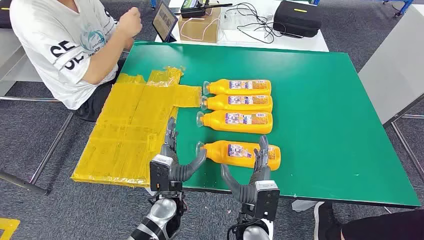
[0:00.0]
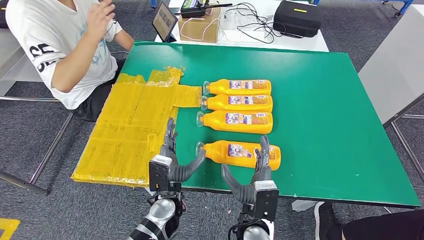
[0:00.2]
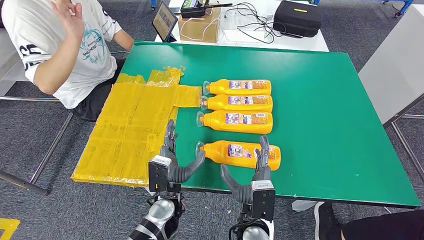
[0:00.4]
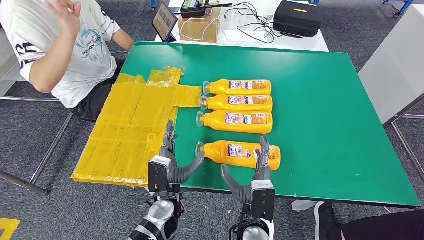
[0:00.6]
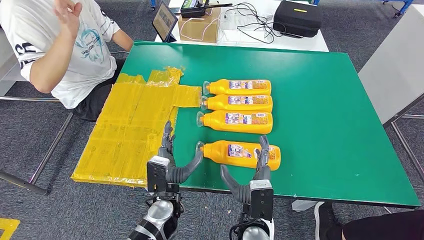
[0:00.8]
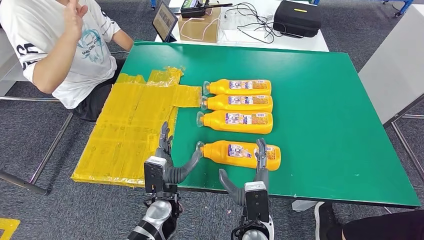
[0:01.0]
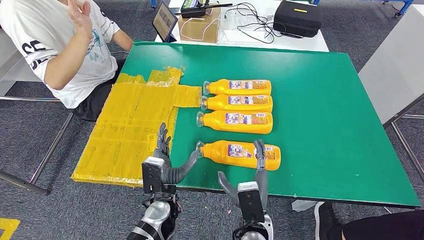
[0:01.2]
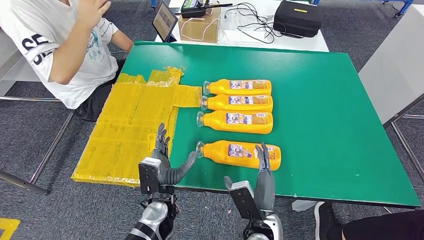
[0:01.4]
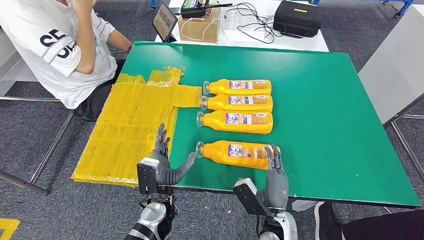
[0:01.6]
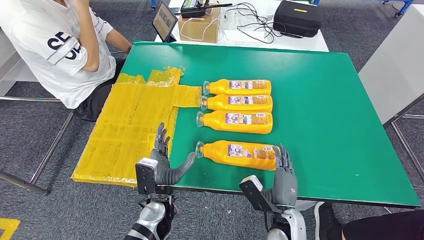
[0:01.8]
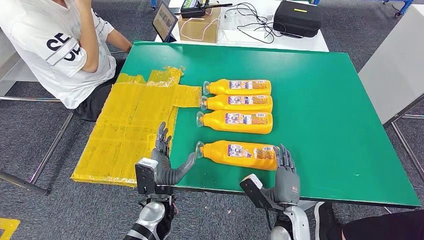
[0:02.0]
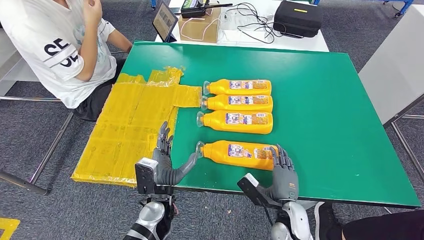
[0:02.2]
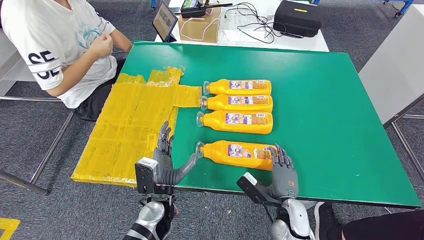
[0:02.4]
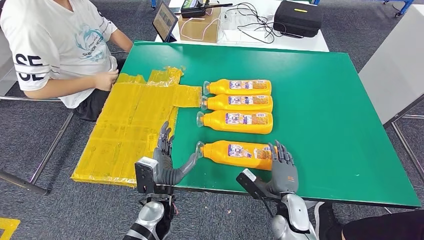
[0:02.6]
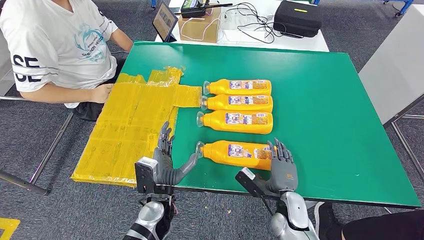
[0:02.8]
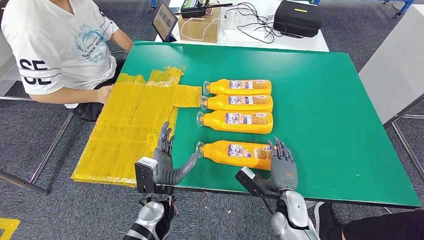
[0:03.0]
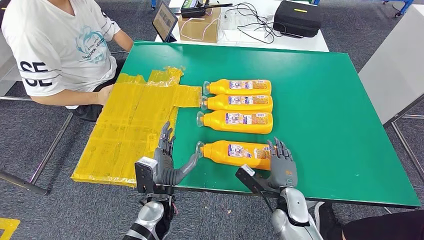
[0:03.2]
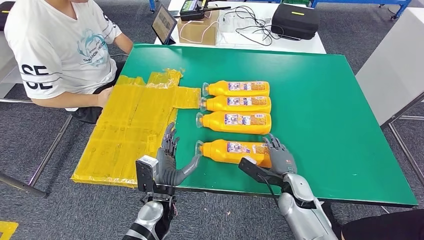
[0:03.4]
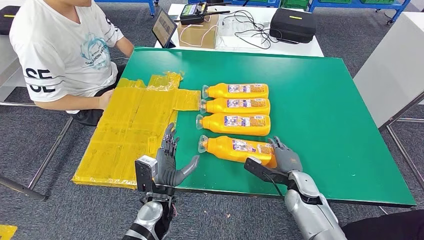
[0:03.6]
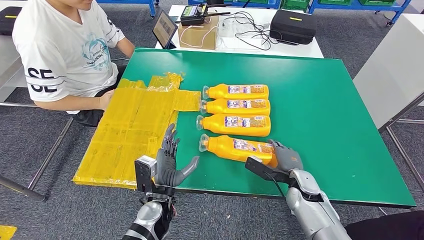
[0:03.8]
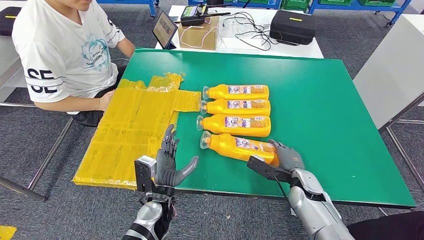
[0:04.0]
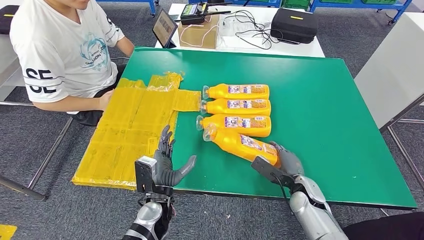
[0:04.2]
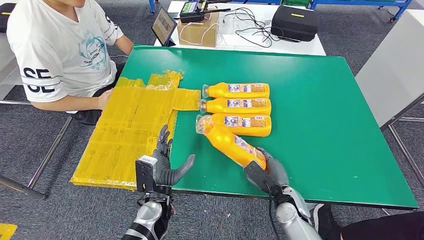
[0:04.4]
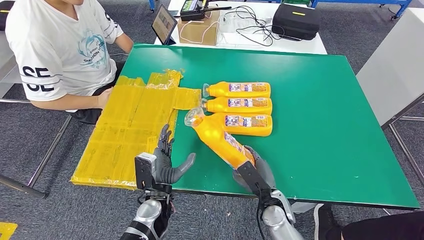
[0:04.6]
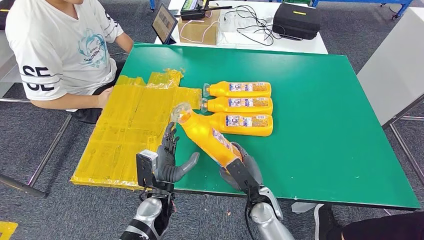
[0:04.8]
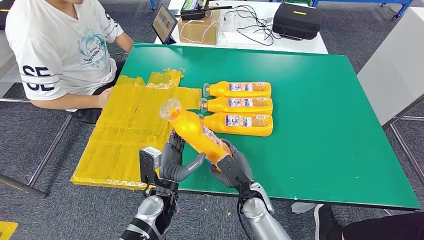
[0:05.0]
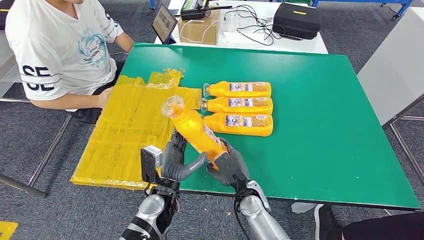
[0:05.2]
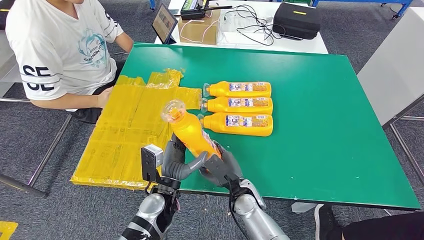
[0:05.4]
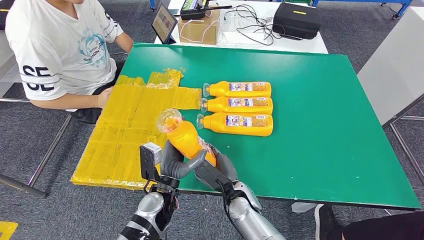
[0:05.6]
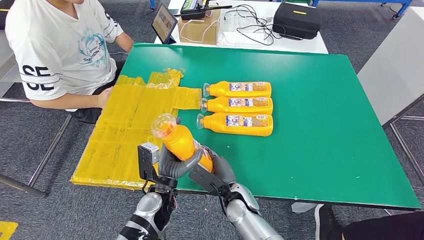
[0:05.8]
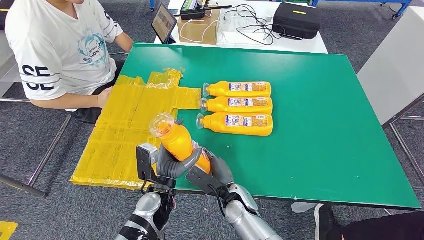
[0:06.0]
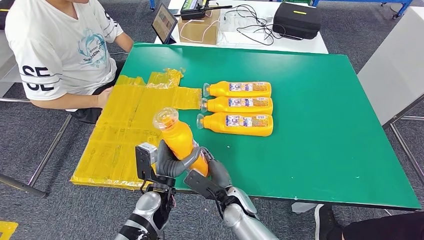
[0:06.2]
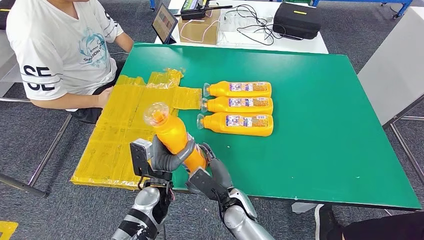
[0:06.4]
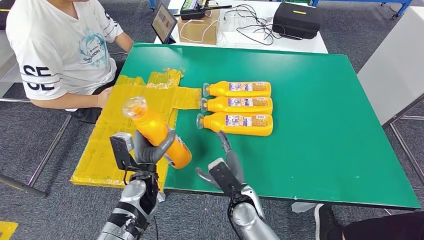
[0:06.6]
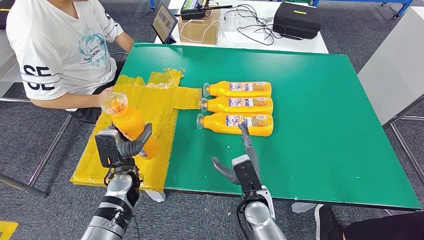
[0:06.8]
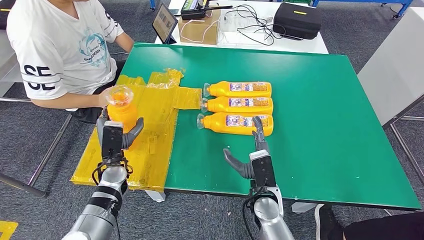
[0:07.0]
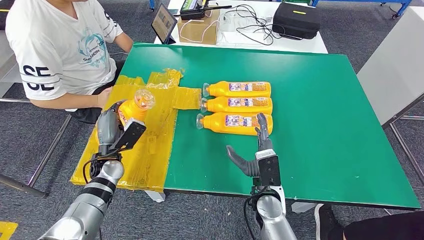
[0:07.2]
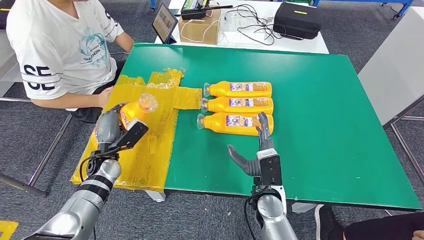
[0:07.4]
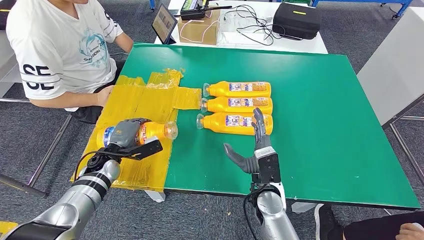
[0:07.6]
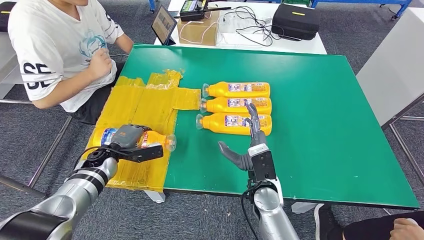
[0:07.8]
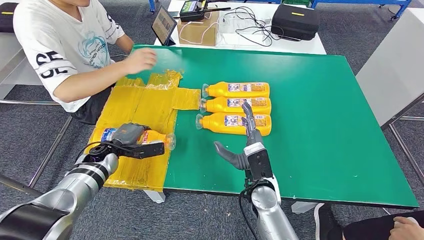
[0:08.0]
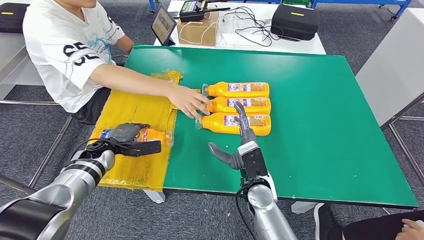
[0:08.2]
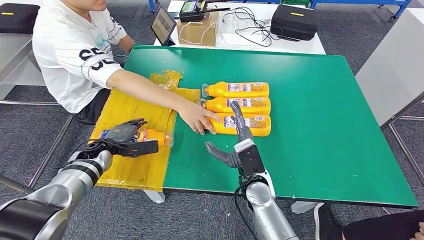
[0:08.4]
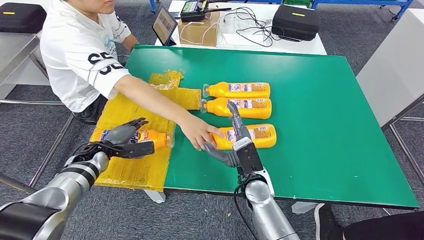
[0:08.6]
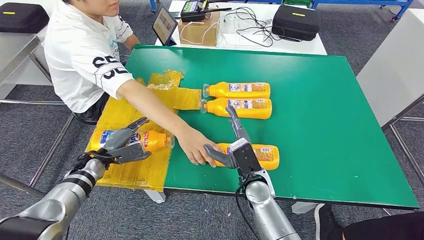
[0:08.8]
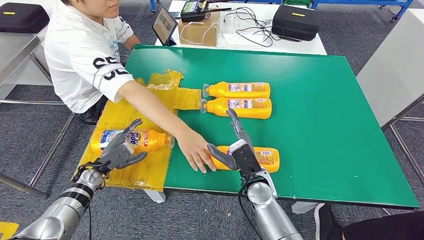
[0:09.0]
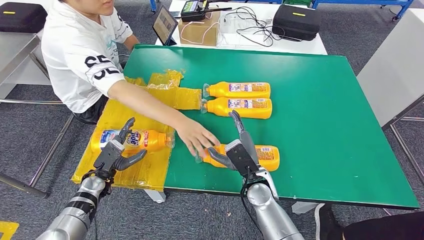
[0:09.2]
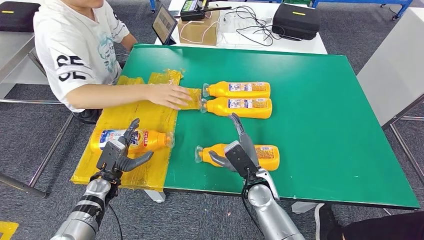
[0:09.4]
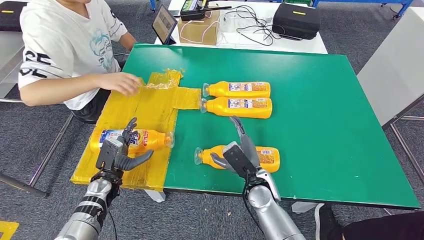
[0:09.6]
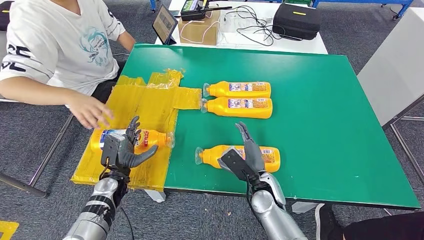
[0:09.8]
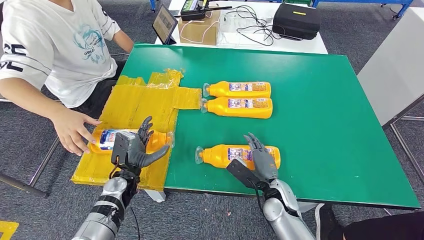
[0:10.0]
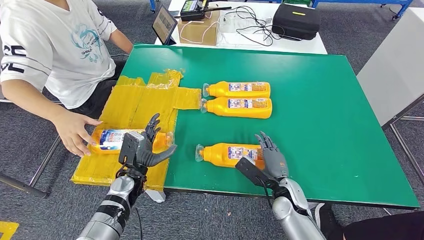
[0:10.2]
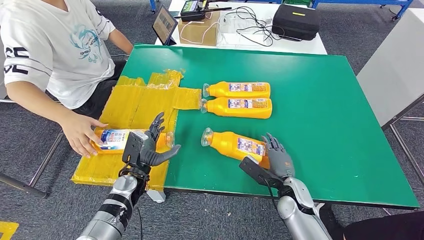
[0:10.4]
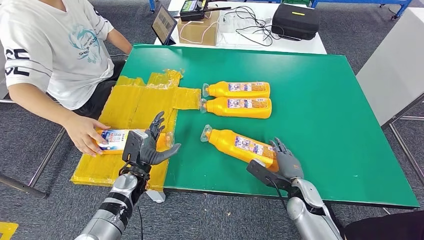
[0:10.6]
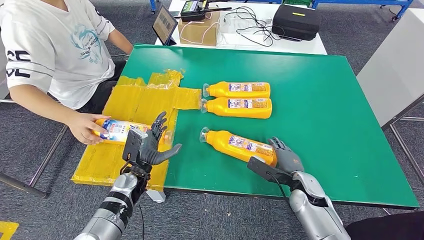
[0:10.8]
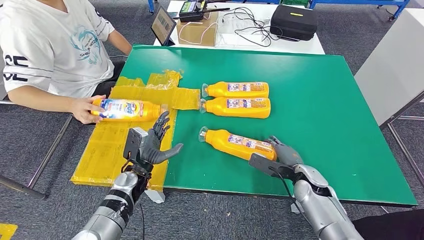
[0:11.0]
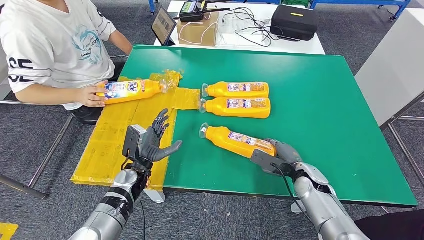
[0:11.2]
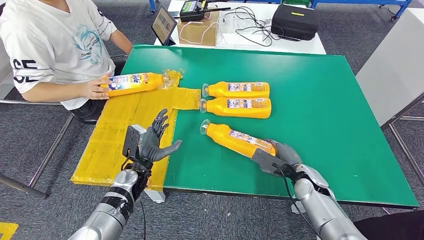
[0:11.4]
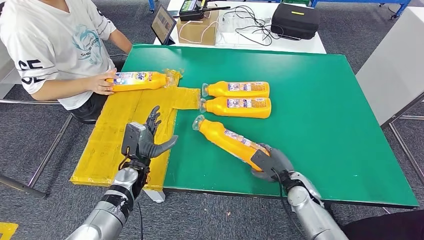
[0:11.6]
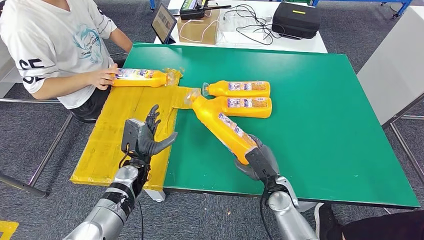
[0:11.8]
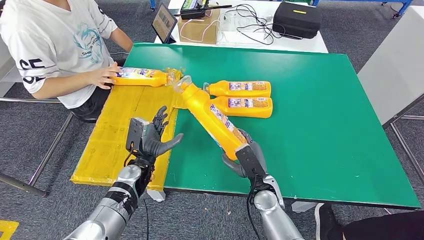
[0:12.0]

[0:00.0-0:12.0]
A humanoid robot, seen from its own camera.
Step, 0:00.0 to 0:06.4: Take the fast-moving consumer goods bottle from the table.
Step, 0:06.6 to 0:09.2: Flip the fast-moving consumer goods bottle to the front side.
0:01.6 to 0:03.0: The right hand heads forward, covering approximately 5 cm.
0:06.0 to 0:07.6: The left hand shifts approximately 20 cm to the left and forward. The right hand heads to the right and upward, covering approximately 10 cm.

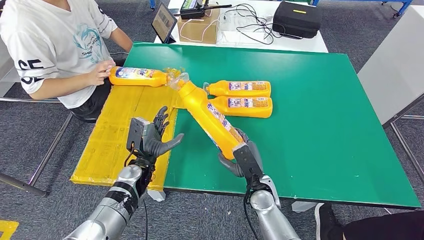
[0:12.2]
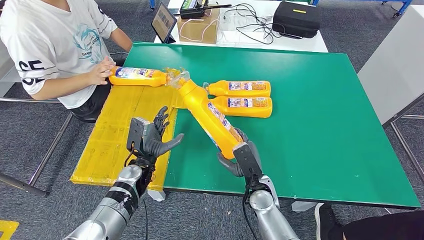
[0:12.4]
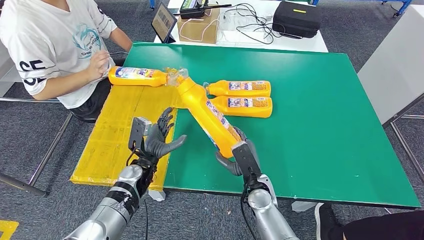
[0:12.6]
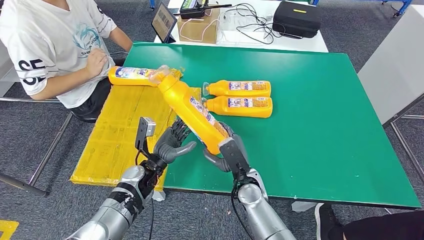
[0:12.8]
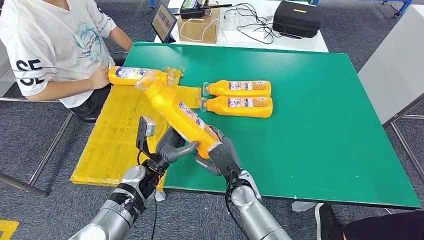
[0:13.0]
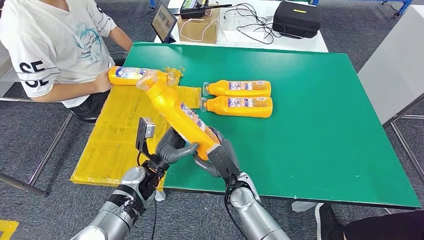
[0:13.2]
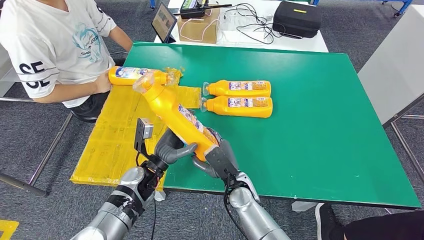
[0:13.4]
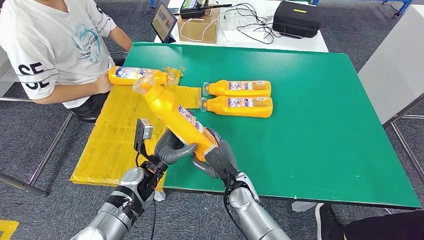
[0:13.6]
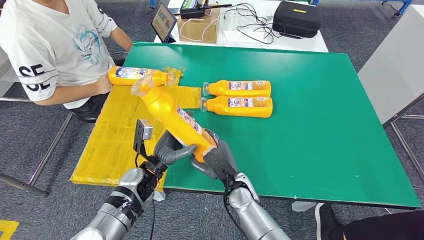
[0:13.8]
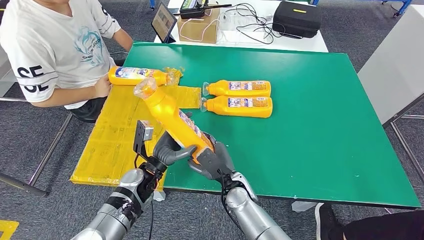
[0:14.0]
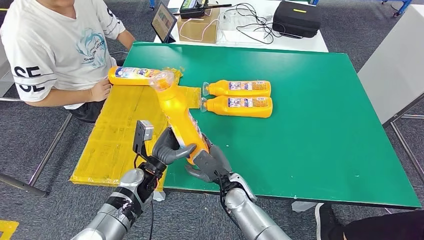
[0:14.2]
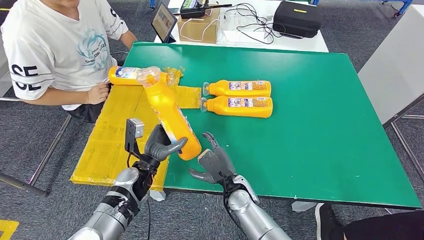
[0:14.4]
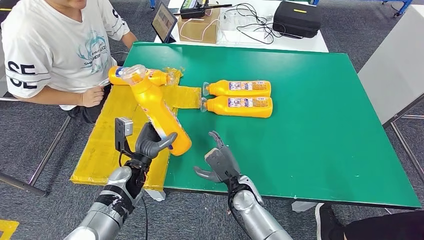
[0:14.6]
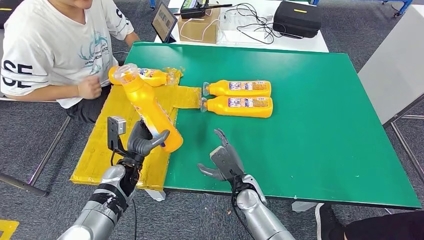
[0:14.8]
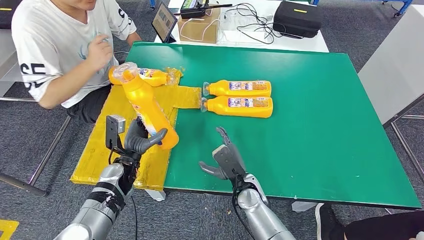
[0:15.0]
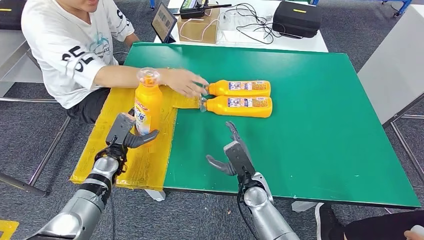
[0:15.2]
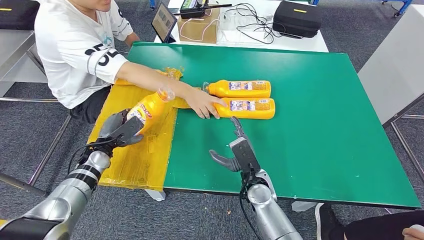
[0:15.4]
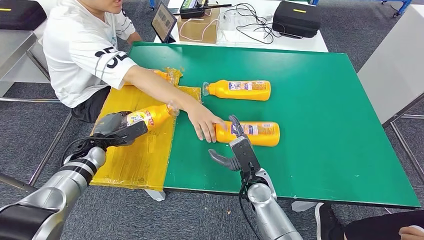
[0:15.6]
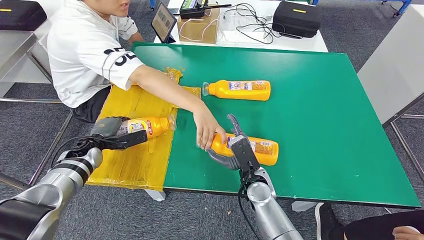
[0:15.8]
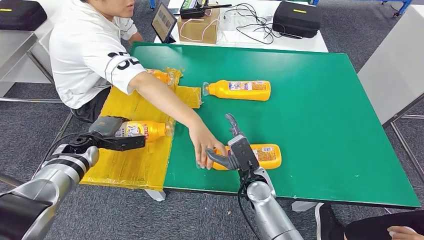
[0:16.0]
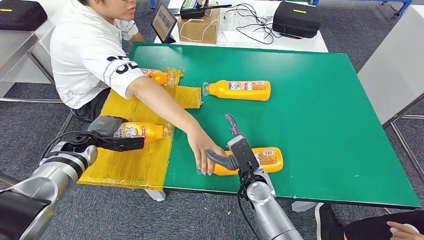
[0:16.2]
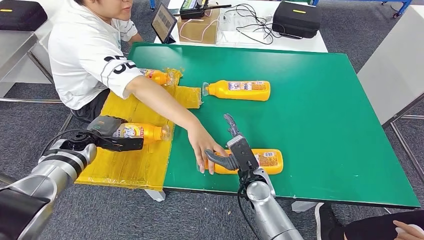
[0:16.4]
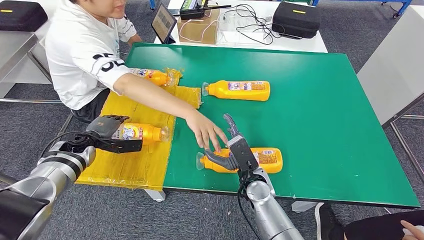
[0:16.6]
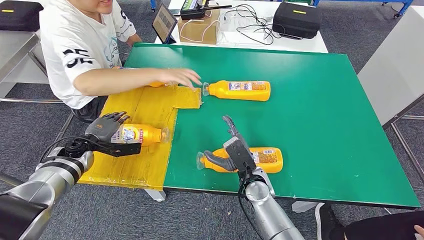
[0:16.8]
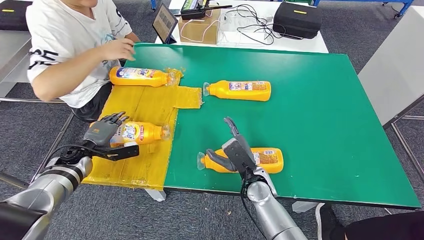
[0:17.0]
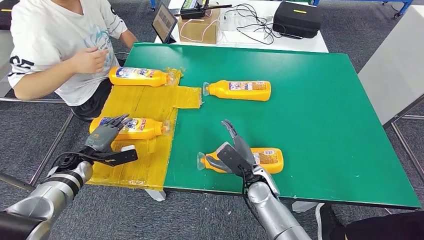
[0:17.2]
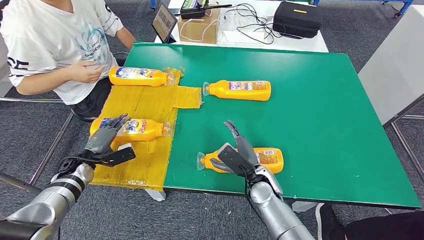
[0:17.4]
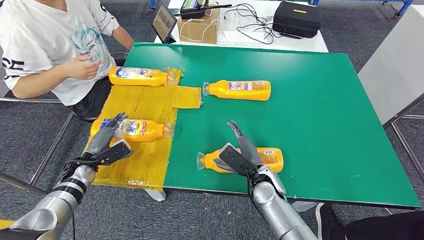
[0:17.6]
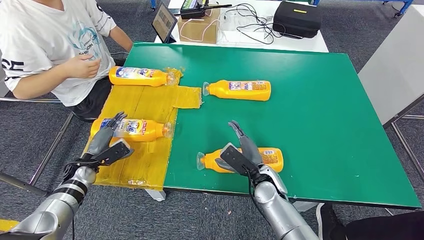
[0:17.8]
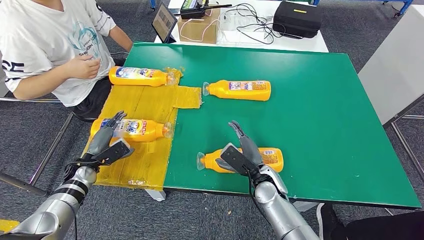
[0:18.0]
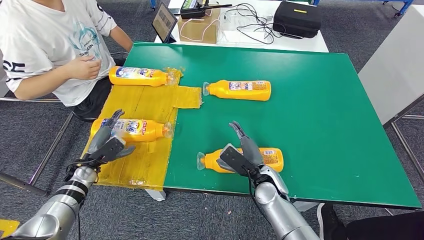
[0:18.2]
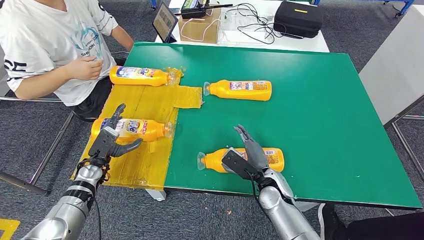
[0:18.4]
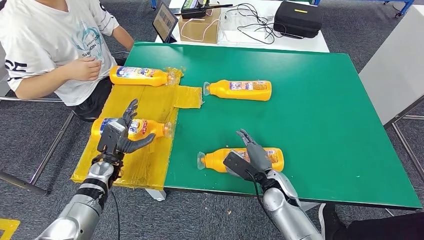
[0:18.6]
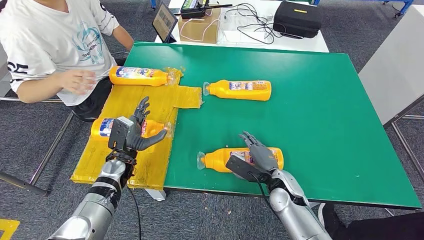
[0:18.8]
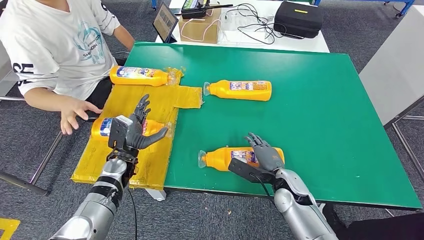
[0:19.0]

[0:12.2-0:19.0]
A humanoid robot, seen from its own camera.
Step, 0:13.6 to 0:16.8: Flip the fast-moving consumer goods bottle to the front side.
0:12.2 to 0:13.6: The right hand goes roughly 5 cm to the left.
0:13.6 to 0:15.0: The left hand is displaced to the left by roughly 10 cm.
